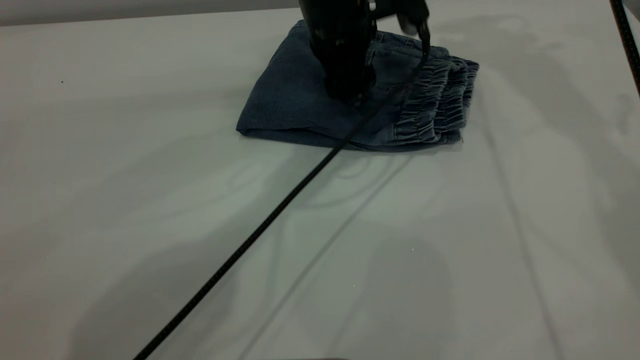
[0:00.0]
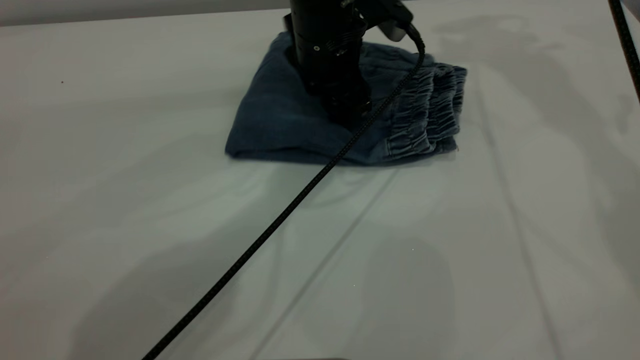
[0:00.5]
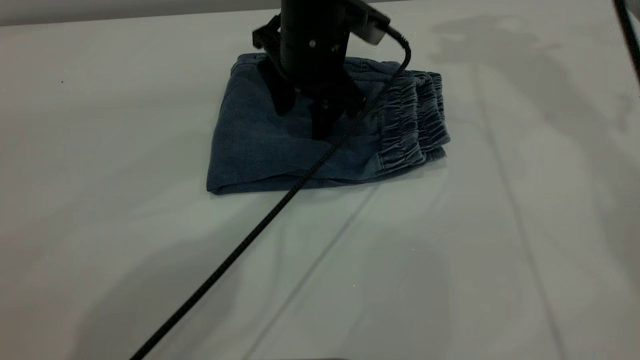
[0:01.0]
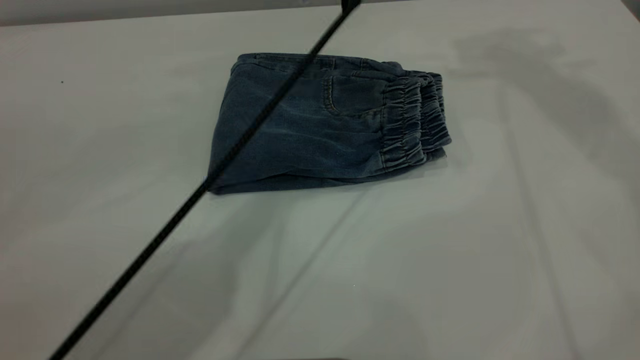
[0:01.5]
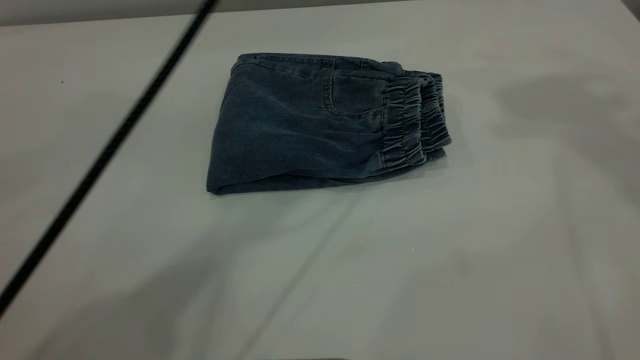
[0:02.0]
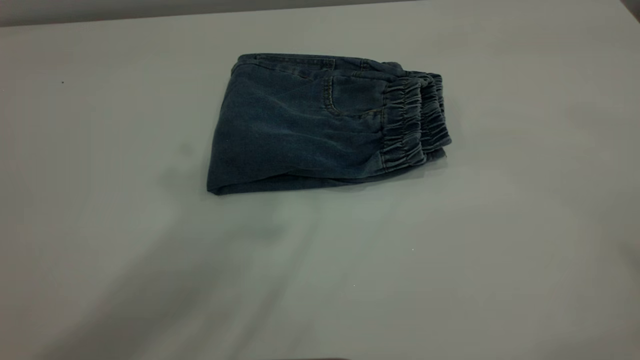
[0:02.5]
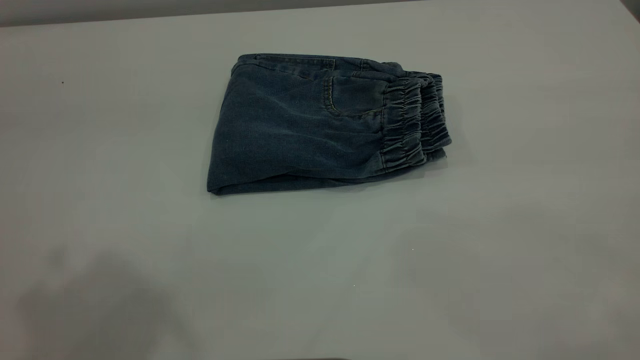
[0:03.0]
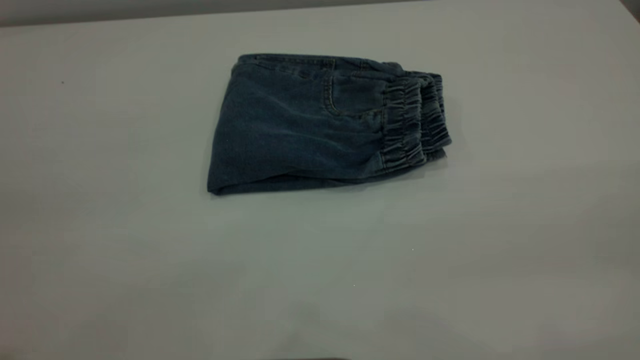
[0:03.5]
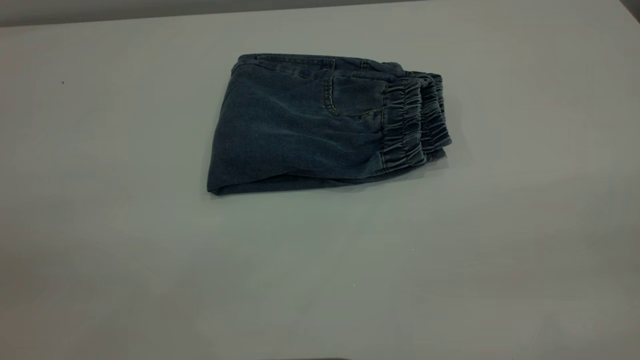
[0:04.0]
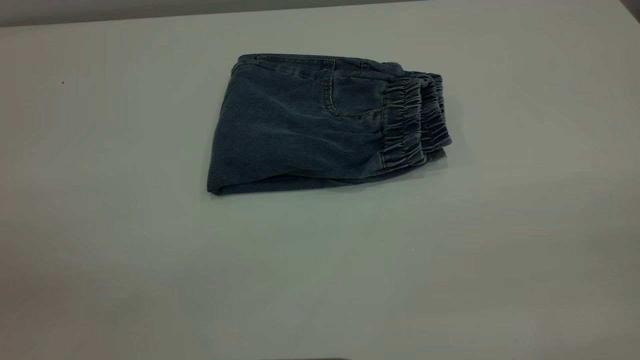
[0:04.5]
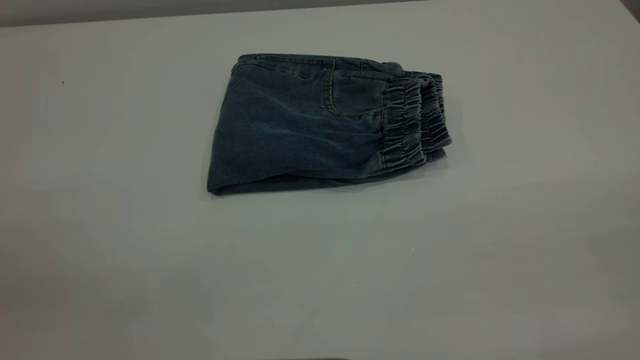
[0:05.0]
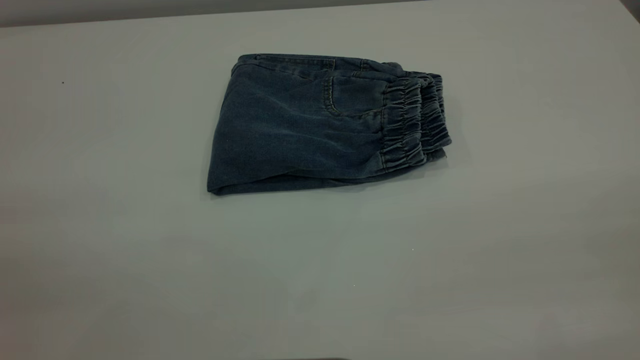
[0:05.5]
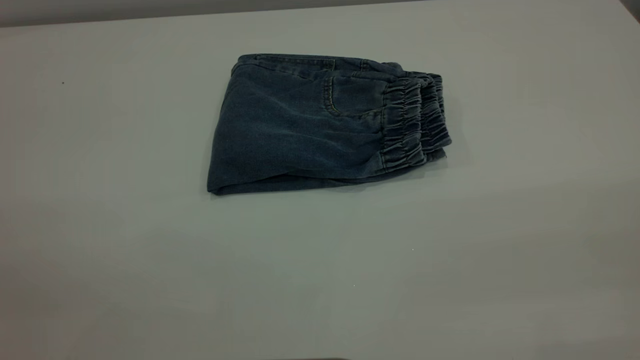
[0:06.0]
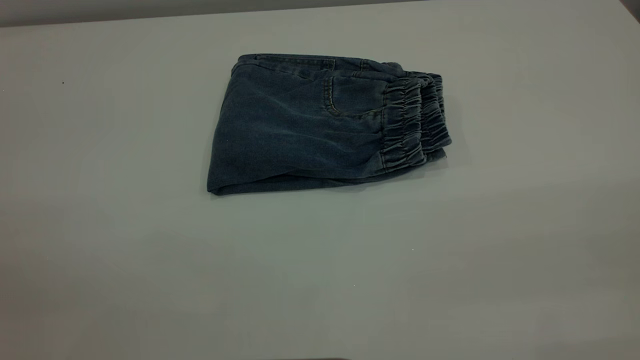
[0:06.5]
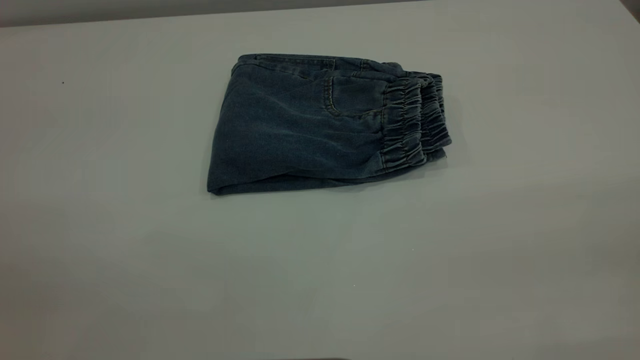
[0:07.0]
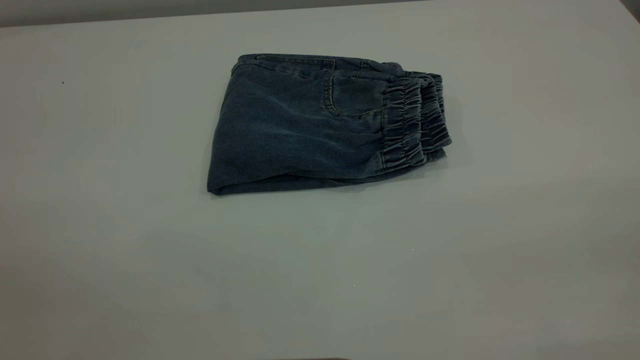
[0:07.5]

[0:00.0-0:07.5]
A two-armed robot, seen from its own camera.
0:00.0 to 0:02.0: The left gripper heads upward, covering some 25 cm. The right gripper is displaced backward and upward by approximately 25 cm.
0:02.0 to 0:04.0: The left gripper travels backward and to the left by approximately 40 cm.
